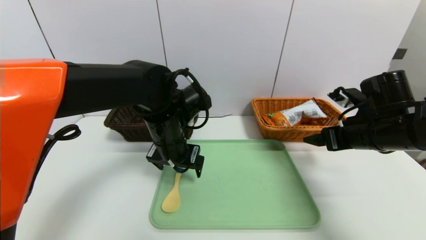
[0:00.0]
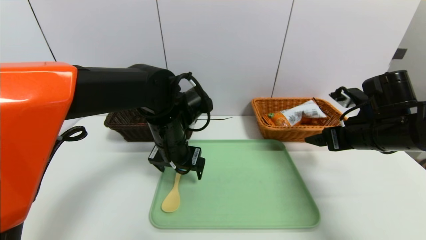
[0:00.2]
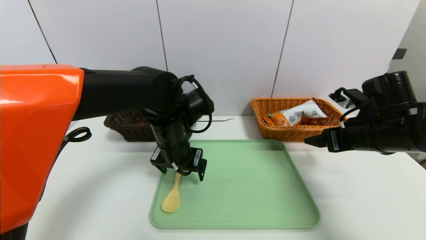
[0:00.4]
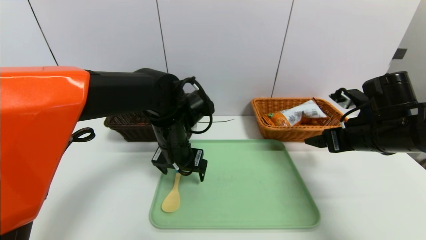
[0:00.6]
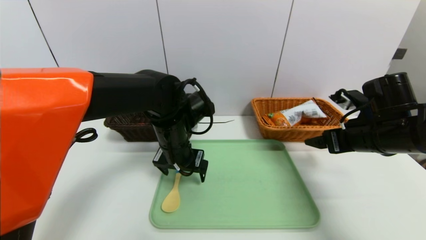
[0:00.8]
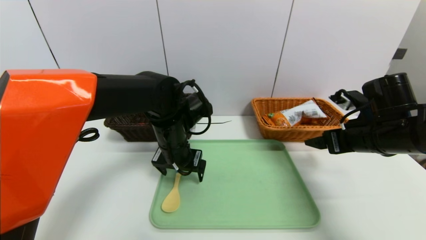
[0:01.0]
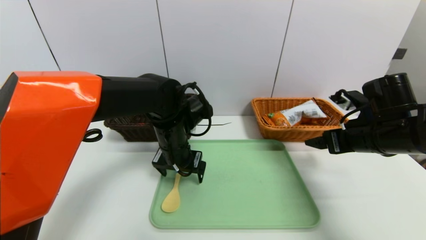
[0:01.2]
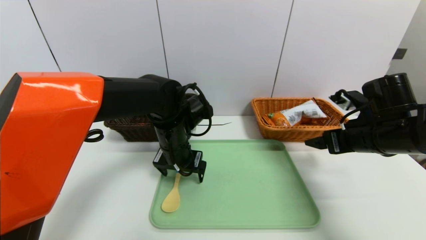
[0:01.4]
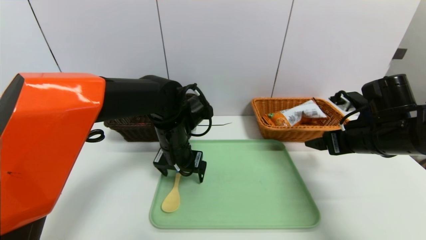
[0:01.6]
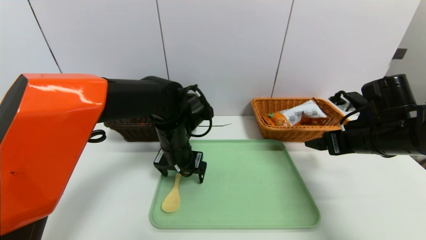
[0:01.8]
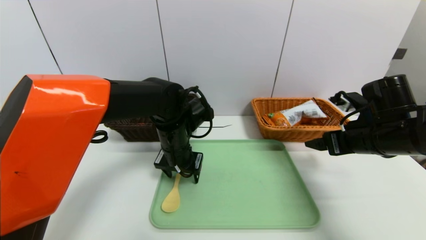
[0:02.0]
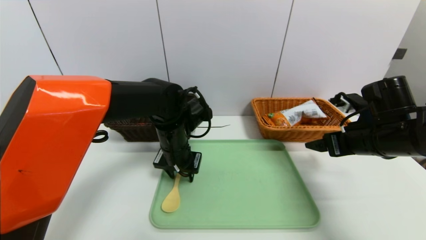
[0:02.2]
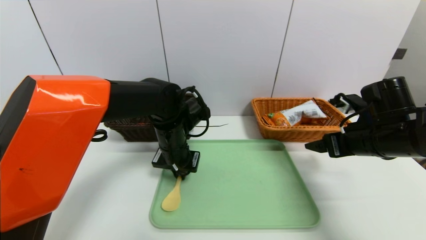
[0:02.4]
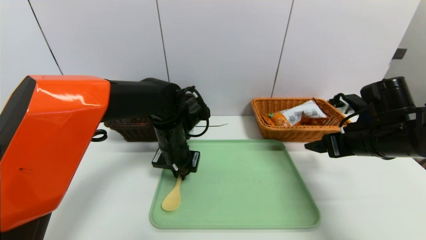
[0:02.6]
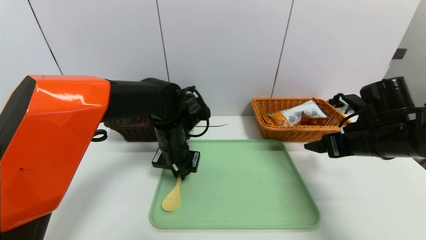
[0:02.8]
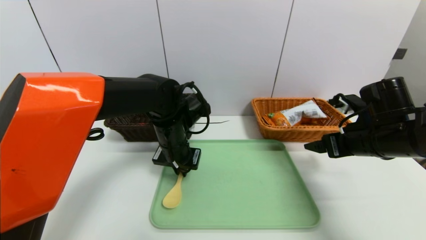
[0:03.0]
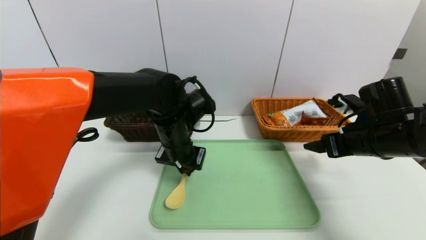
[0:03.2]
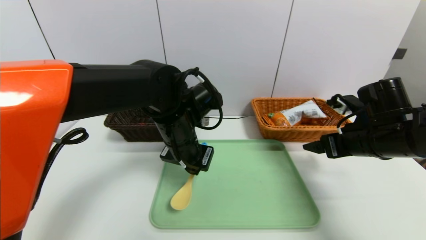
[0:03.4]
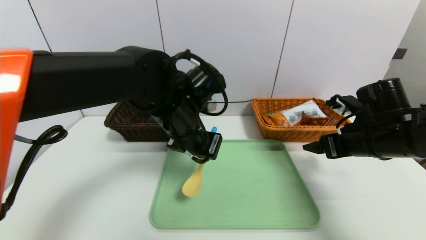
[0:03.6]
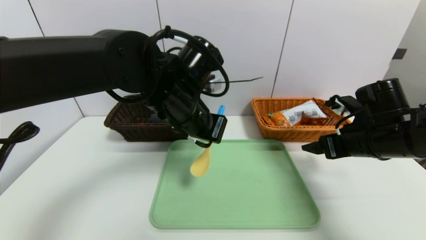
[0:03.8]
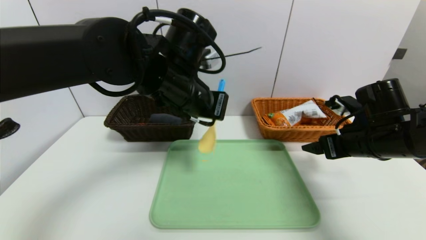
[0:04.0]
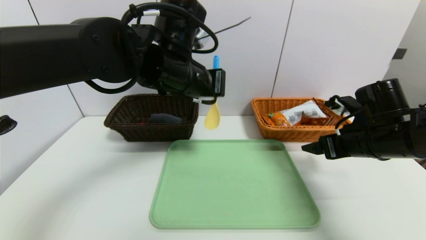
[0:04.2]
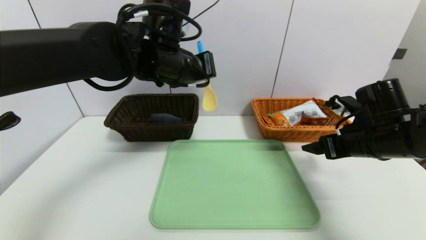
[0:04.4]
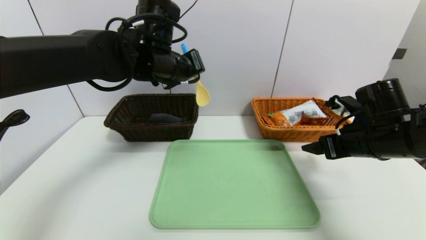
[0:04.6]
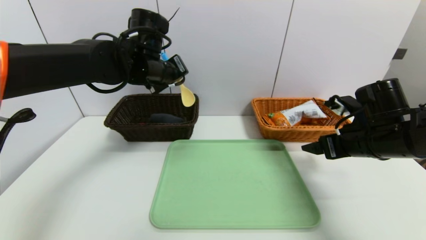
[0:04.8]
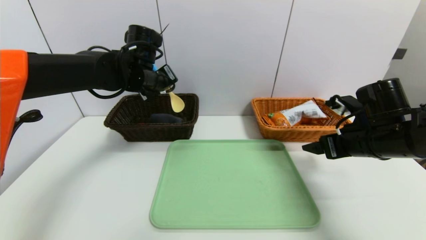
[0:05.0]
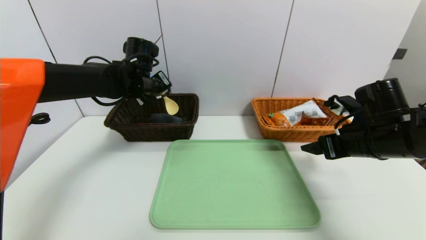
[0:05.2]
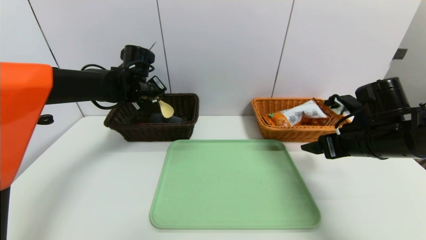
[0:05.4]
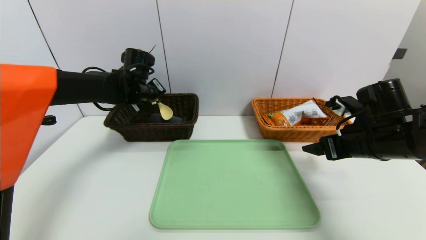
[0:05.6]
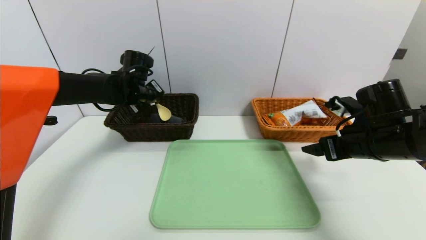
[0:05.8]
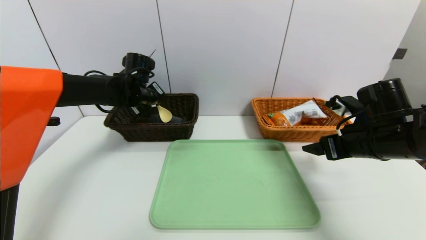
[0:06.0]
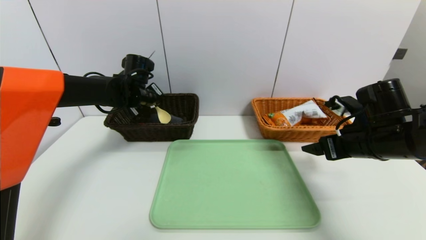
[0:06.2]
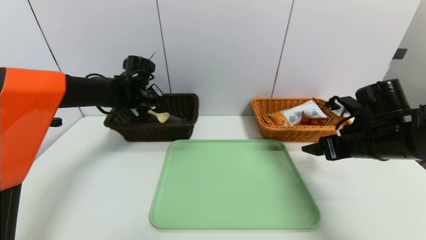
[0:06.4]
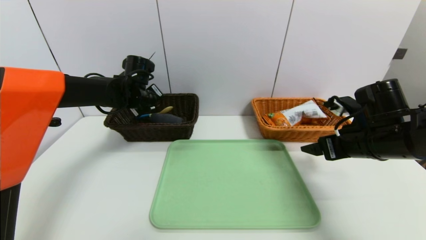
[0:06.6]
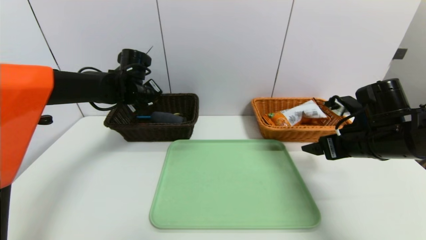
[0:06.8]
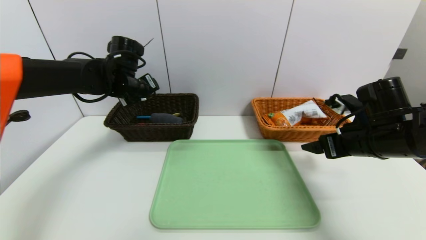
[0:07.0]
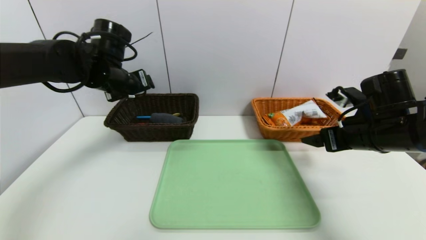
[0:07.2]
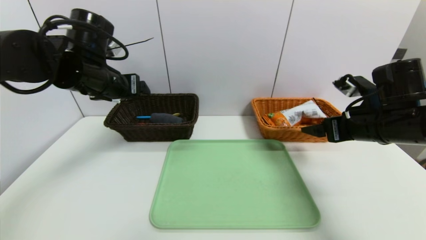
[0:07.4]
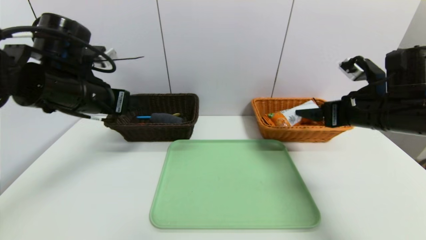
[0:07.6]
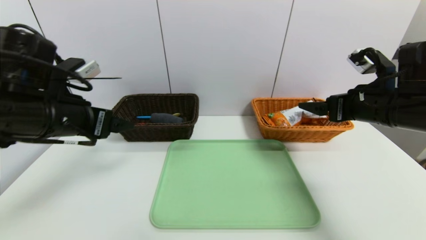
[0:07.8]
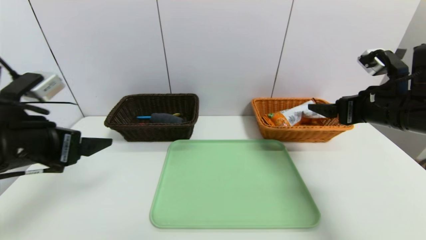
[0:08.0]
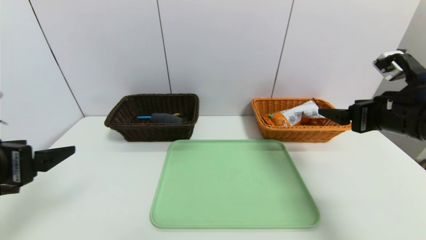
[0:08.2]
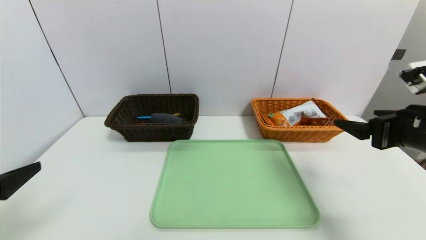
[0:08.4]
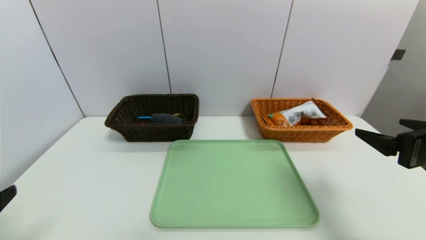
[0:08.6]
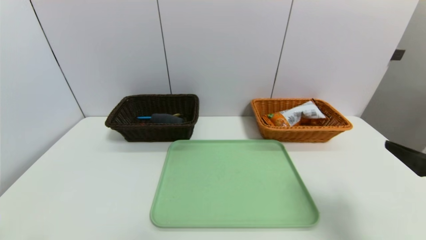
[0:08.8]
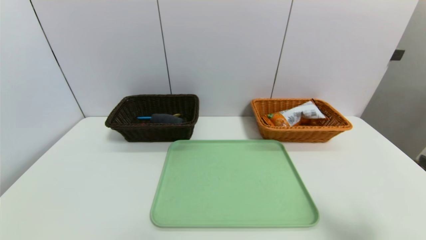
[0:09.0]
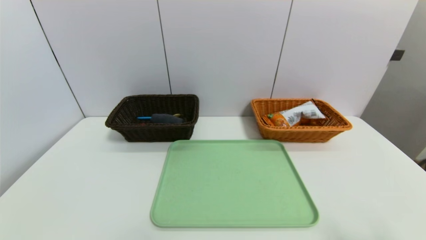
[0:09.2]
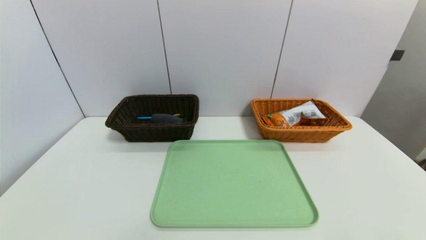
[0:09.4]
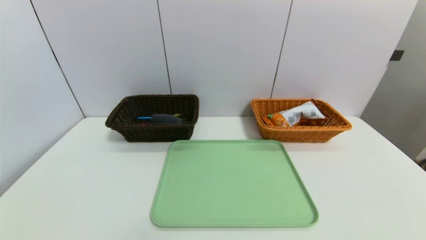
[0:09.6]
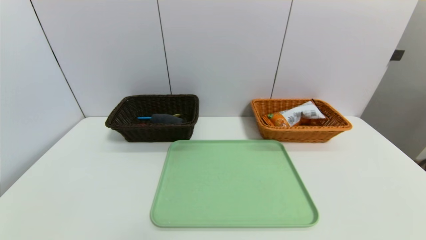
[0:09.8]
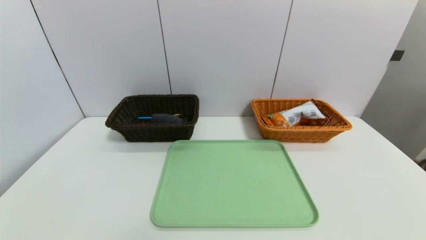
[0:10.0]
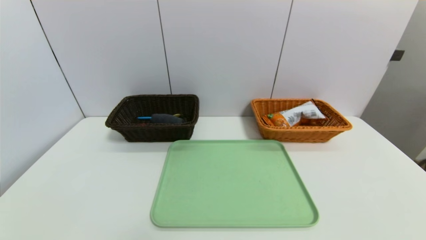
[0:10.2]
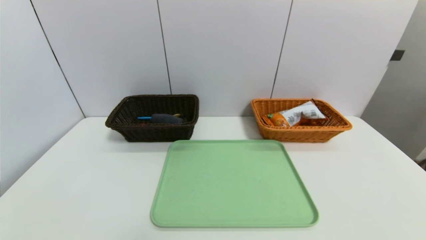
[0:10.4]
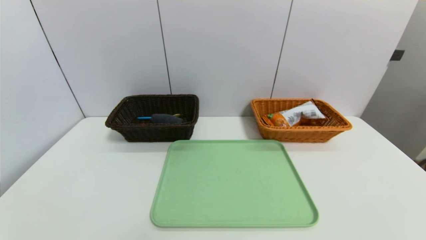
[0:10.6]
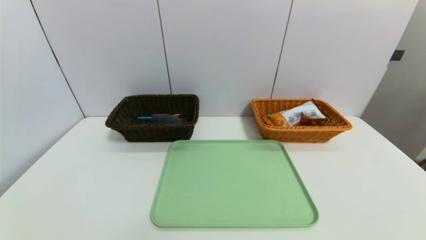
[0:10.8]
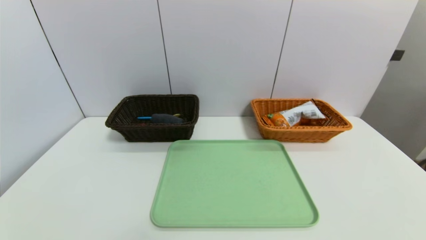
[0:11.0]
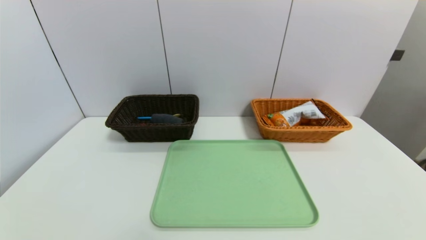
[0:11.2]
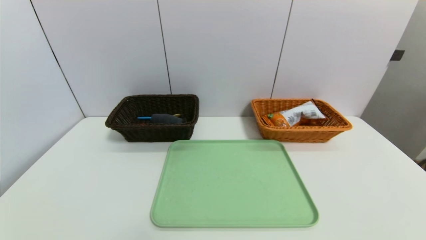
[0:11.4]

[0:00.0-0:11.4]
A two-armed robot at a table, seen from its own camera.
Task of the whole recording: place the food in the right basket with the right gripper, and place the non food items in the left basket with the left gripper.
Step, 0:00.0 to 0:07.0: Grasp the back scratcher and put it in the left basket.
0:00.0 to 0:01.4: The grippers make only small movements.
0:01.4 to 0:02.8: The left gripper closes up.
0:02.8 to 0:04.2: The left gripper is displaced upward by about 15 cm.
0:04.2 to 0:05.6: The left gripper moves forward, to the left and downward, about 20 cm.
0:05.6 to 0:07.2: The left gripper heads backward and upward, covering some 10 cm, and opens up.
0:07.2 to 0:08.6: The left gripper is displaced backward by roughly 35 cm. Meanwhile the right gripper moves backward, some 10 cm.
0:08.6 to 0:10.0: The left gripper goes some 10 cm downward and backward, while the right gripper travels backward and downward by approximately 20 cm.

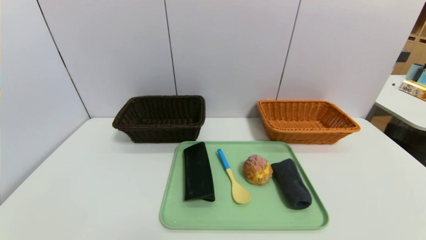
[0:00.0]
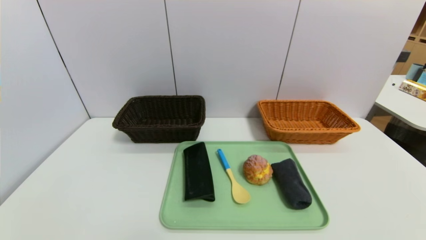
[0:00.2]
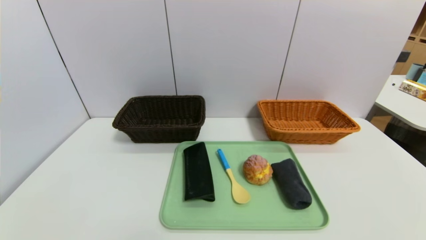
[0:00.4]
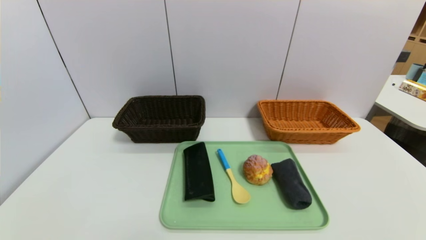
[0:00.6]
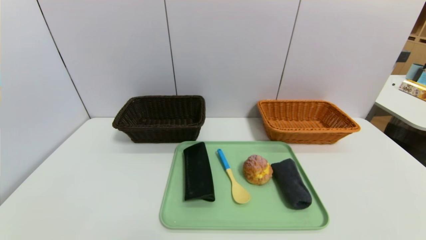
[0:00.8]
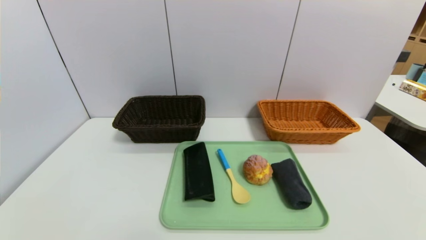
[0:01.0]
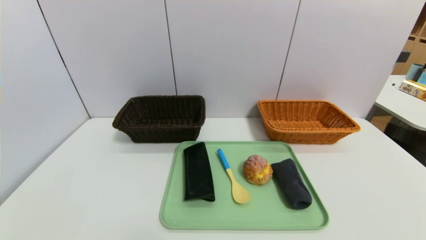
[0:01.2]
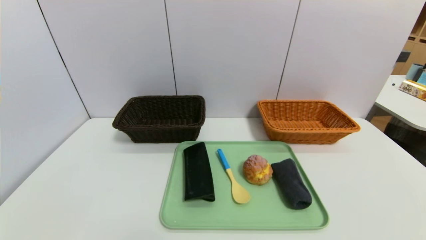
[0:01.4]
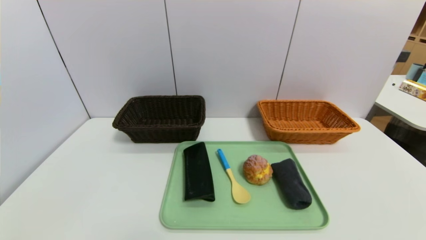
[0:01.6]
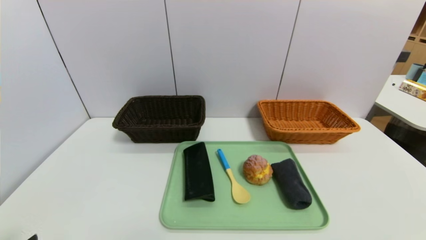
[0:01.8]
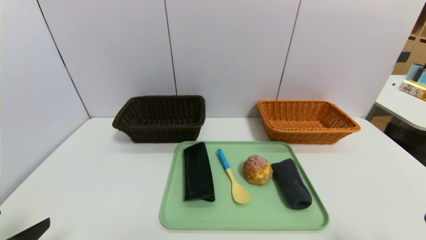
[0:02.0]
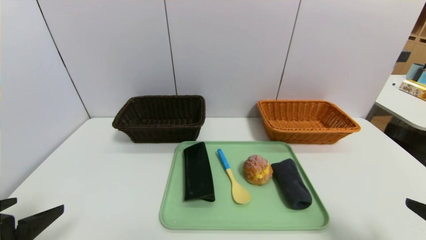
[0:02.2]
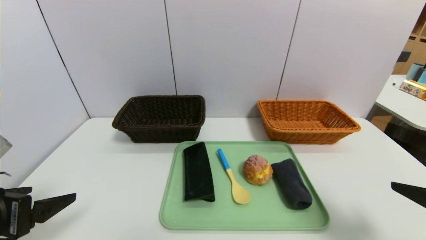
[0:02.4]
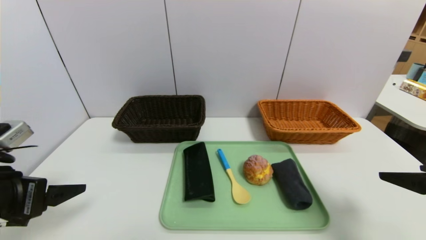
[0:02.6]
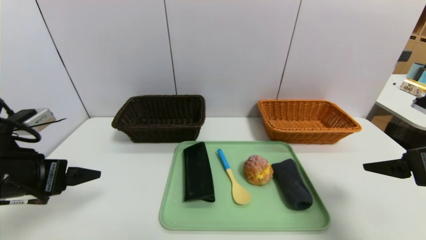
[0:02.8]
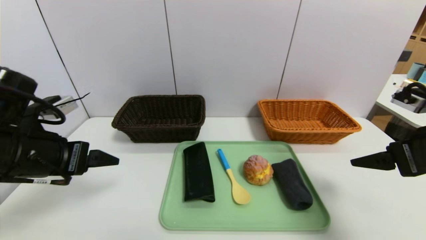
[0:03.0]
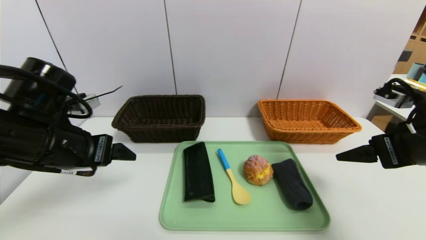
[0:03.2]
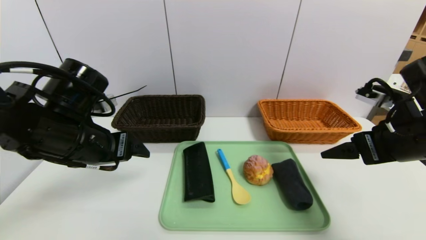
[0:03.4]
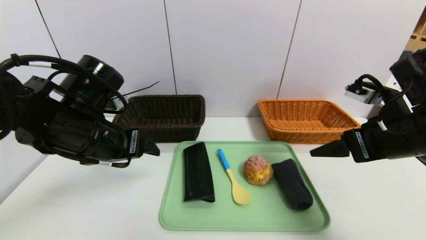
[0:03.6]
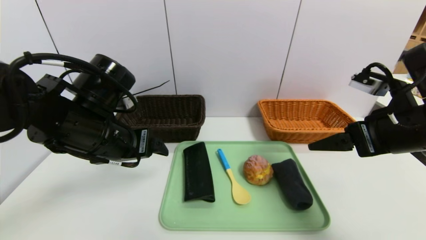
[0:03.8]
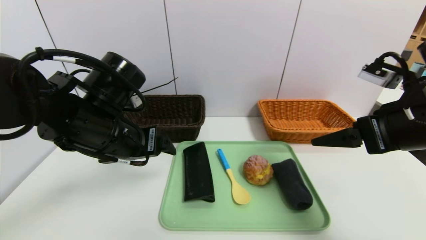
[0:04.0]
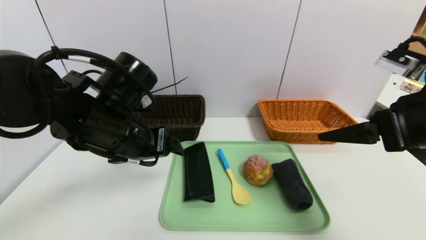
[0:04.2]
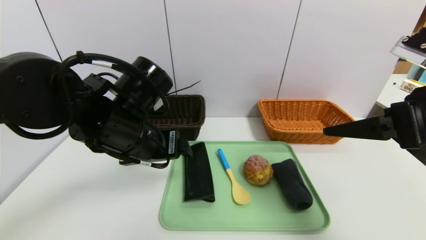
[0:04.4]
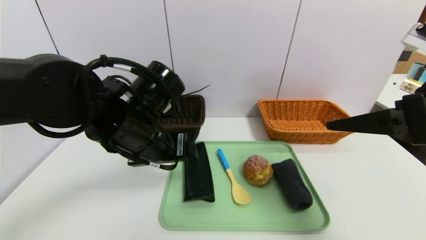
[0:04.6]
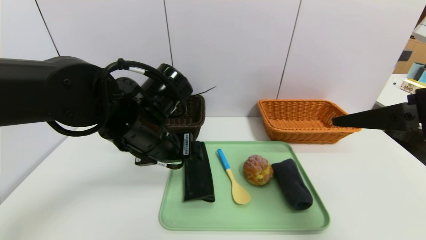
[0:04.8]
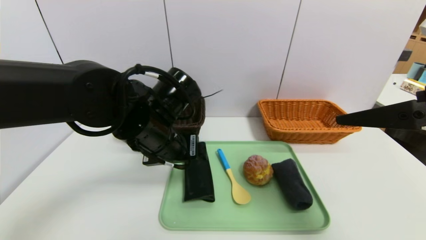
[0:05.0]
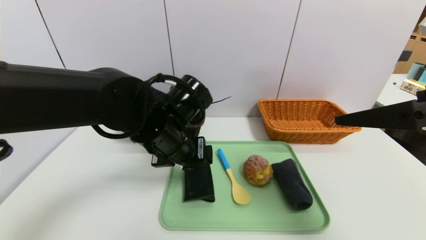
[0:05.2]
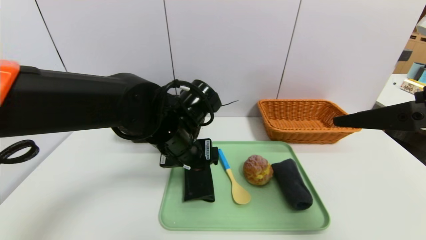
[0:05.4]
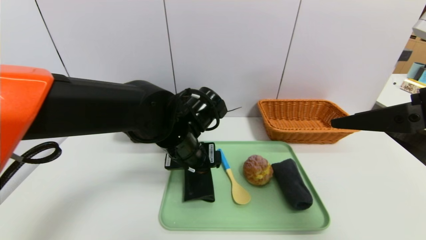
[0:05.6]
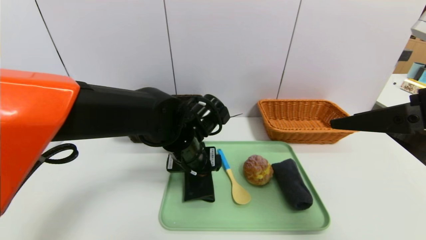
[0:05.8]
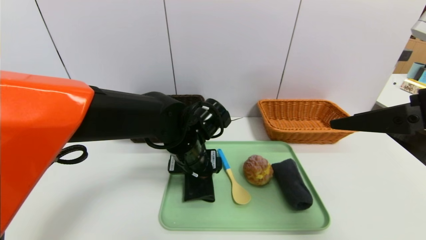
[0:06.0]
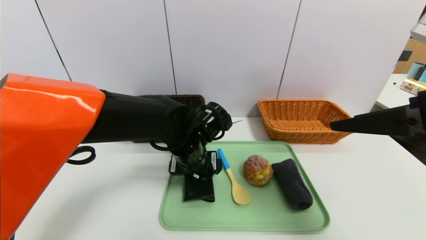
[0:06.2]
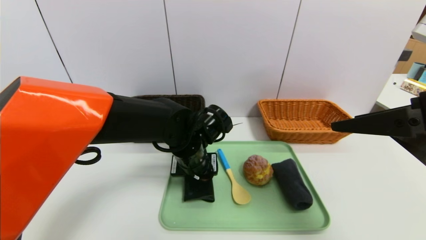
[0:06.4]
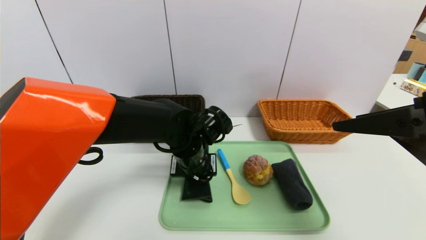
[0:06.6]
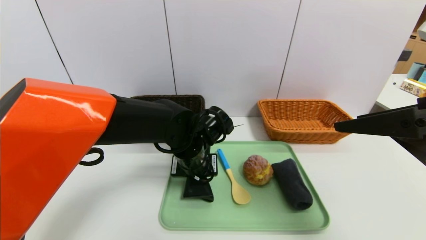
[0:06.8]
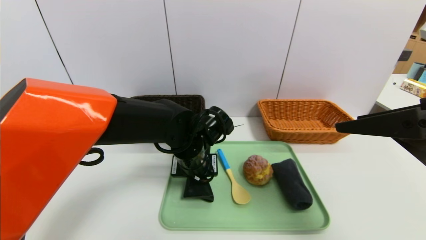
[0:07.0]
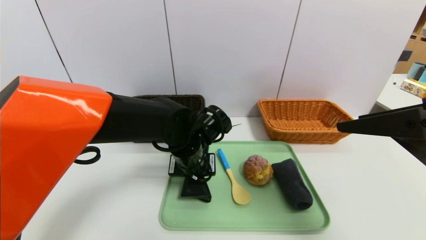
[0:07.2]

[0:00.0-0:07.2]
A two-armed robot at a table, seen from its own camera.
Task of the whole recording: place the food in the right basket with the right gripper, and place the non food items in the left basket with the left gripper.
0:01.4 to 0:02.8: Both grippers move forward and upward, about 20 cm.
0:02.8 to 0:04.4: The left gripper moves to the right and forward, approximately 15 cm, while the right gripper shifts some 10 cm upward and to the left.
0:04.4 to 0:05.8: The left gripper goes about 10 cm to the right and downward.
0:05.8 to 0:07.2: The left gripper closes.
